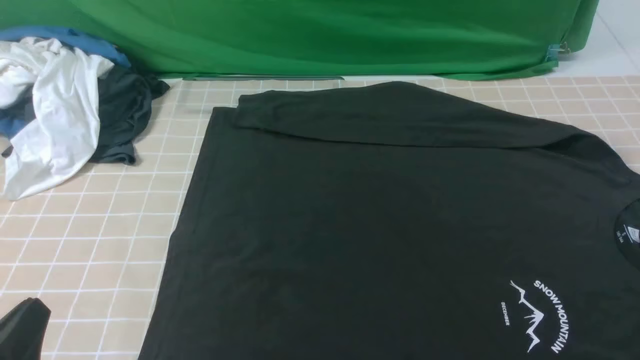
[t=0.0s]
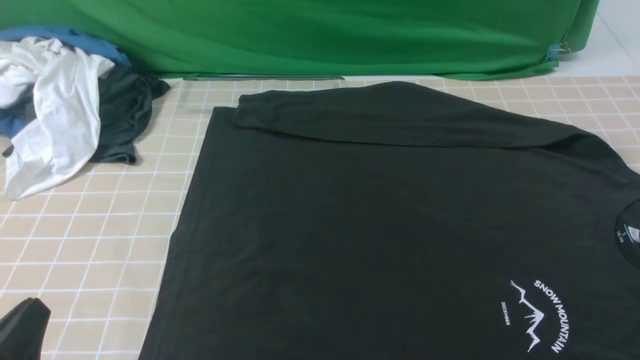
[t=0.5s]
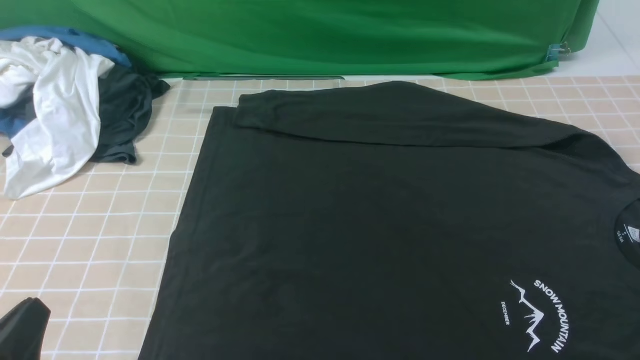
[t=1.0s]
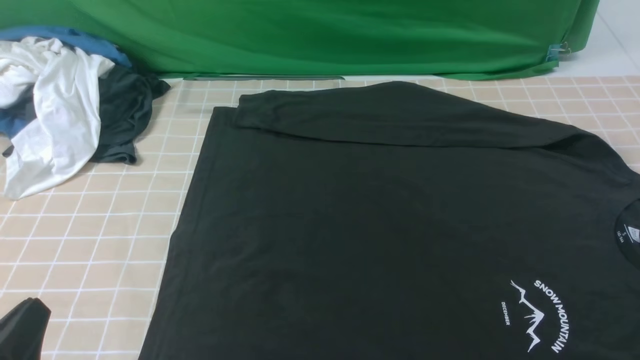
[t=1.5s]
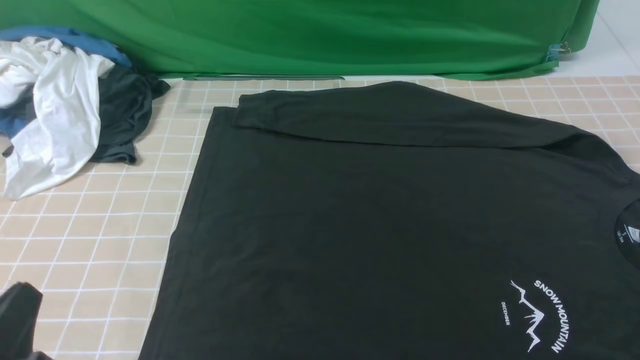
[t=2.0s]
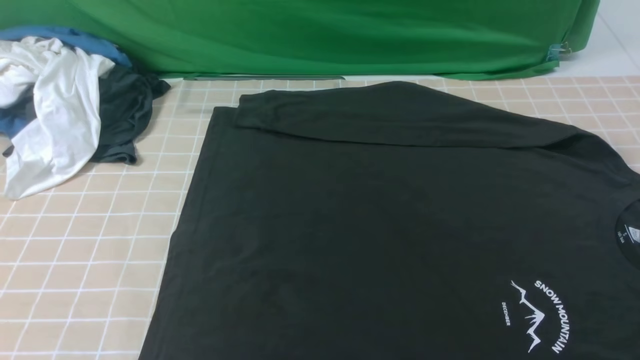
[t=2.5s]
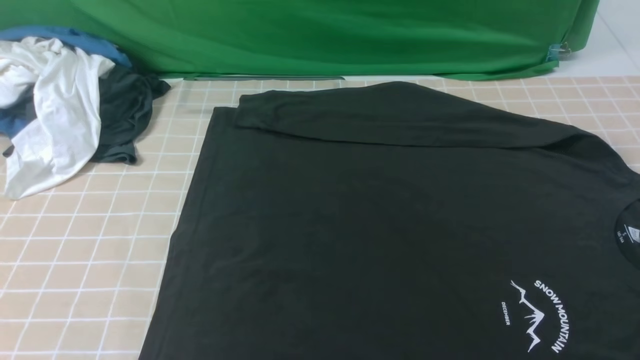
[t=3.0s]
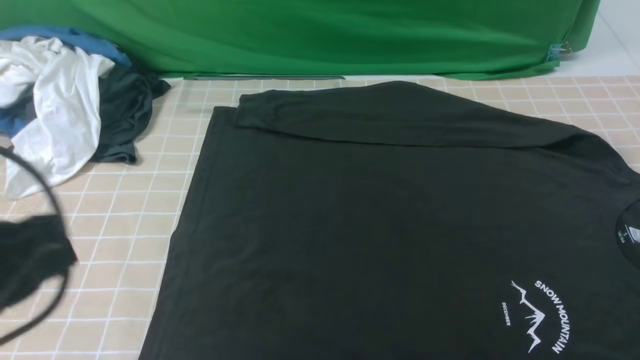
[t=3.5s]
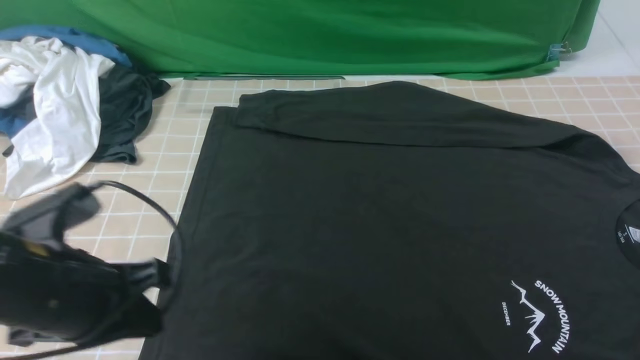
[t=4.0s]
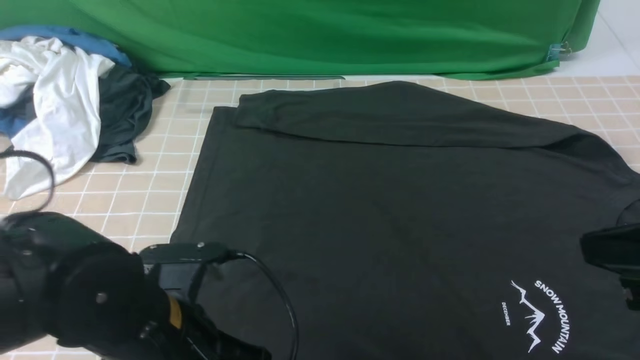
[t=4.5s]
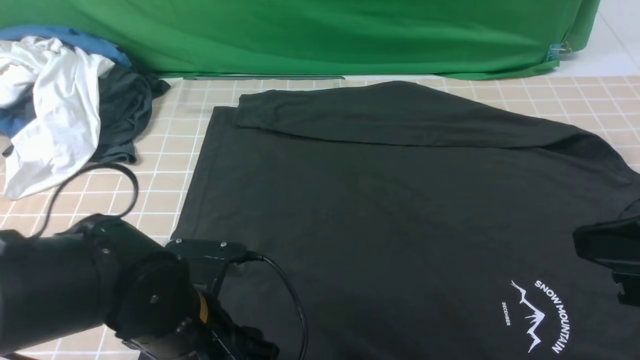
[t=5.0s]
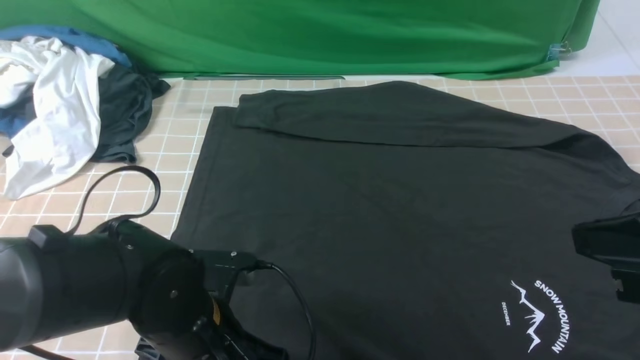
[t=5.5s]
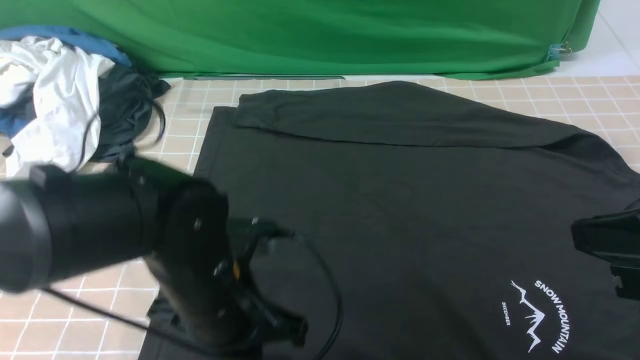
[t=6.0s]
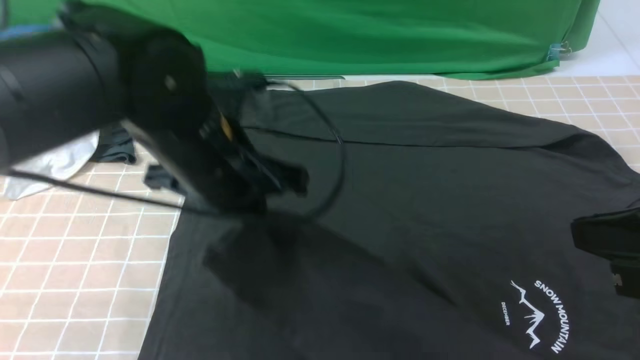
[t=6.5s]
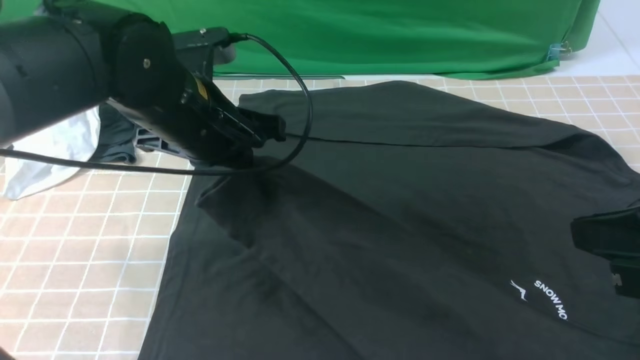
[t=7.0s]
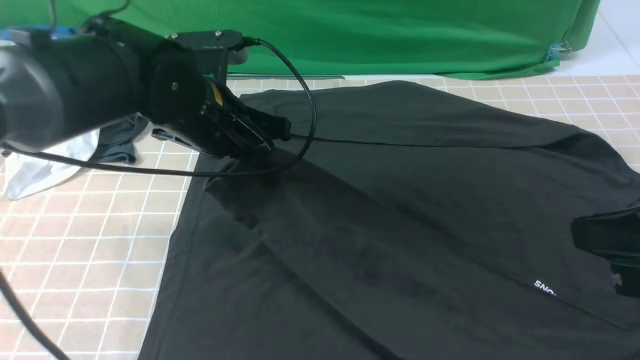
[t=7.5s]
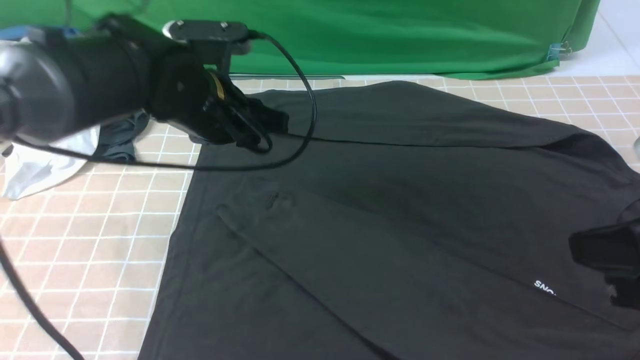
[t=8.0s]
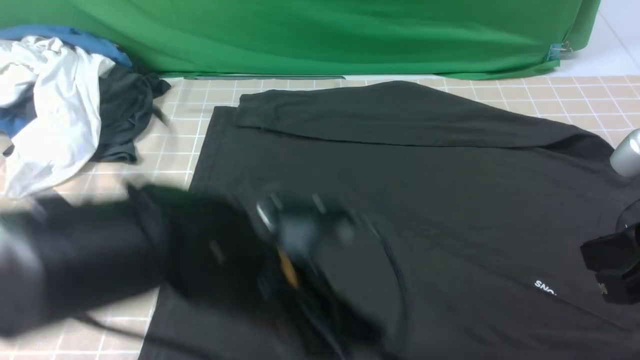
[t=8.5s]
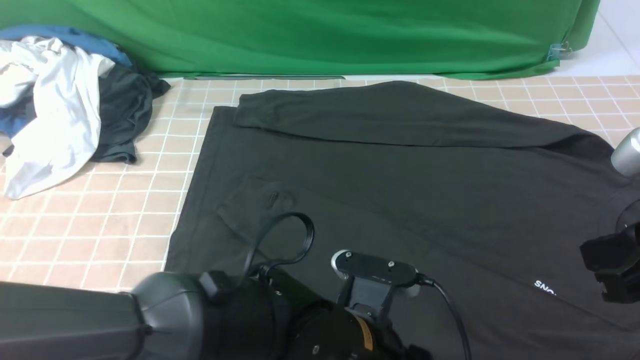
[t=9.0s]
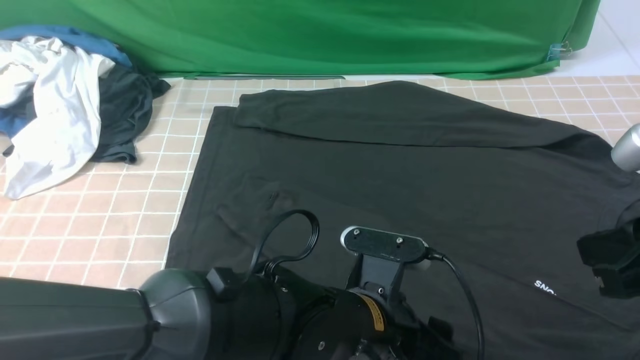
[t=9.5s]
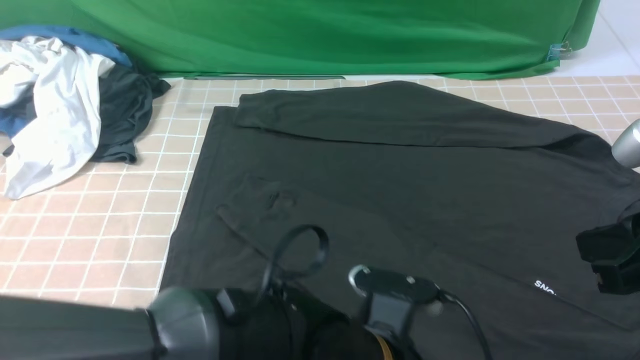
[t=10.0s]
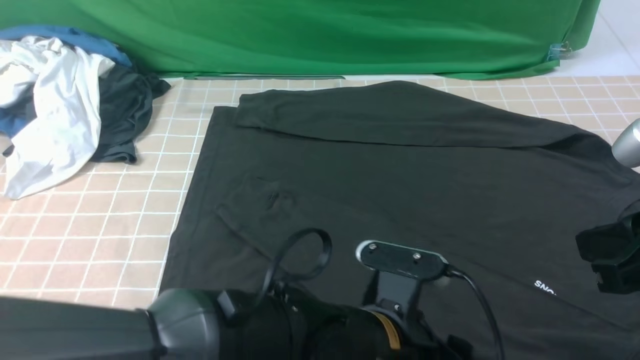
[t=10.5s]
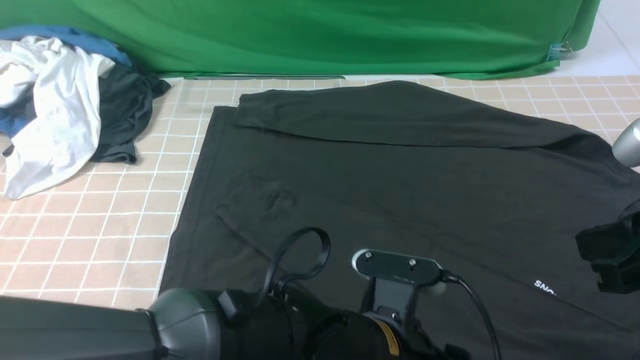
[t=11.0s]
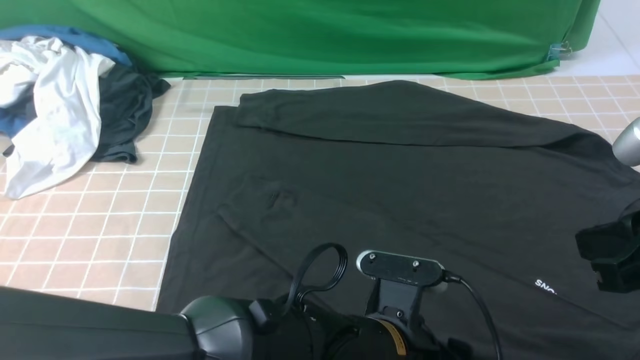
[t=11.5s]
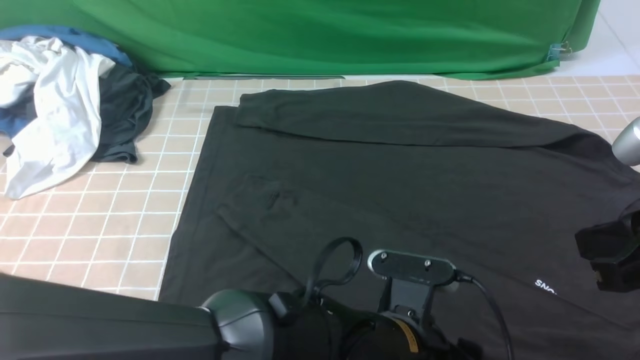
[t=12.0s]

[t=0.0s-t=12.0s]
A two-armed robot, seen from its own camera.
Step, t=0.0s to t=6.0s: use the left arm to clamp the cuff closest to it.
Step, t=6.5s to t=7.5s: use the left arm to drag and place the cuff at the centered position on the left edge of the fabric.
t=0.0s to t=2.0s: The grippers move only a little.
t=2.0s to t=4.0s: The left gripper moves forward and to the right, approximately 15 cm, and travels upward and back again, some 15 cm each way.
t=4.0s to t=6.0s: The right gripper ends up approximately 5 cm from where it was. Meanwhile the left gripper travels to the right by about 10 cm, and opens, then closes again.
t=6.0s to t=8.0s: The left gripper shifts roughly 15 cm forward and upward.
t=8.0s to t=10.0s: The left gripper moves backward, to the right and downward, roughly 25 cm, and opens.
t=10.0s to t=12.0s: There are only small adjustments of the grippers.

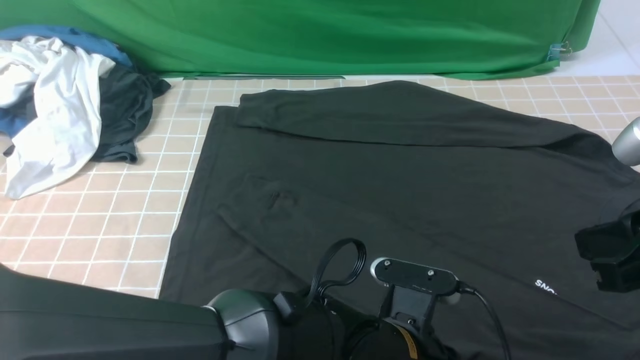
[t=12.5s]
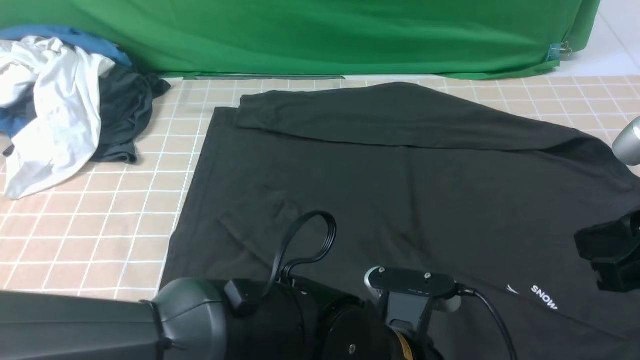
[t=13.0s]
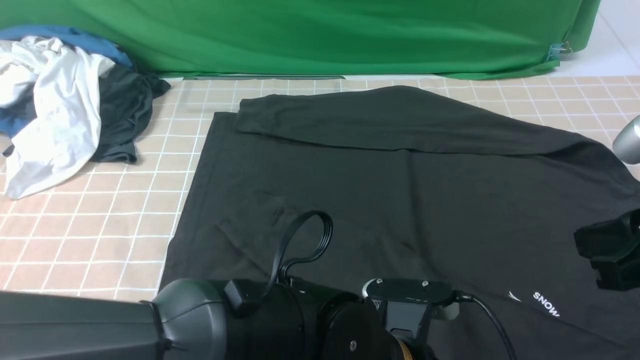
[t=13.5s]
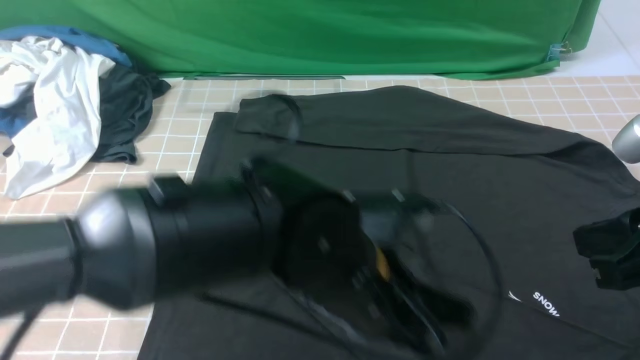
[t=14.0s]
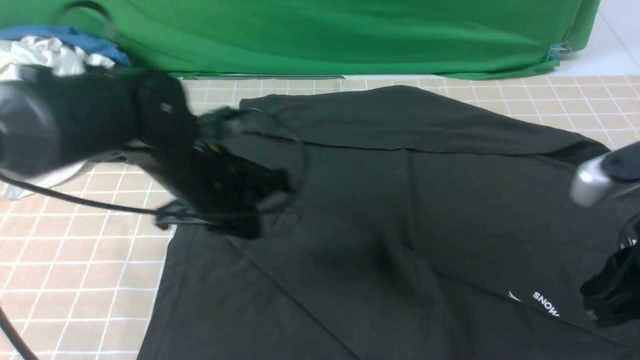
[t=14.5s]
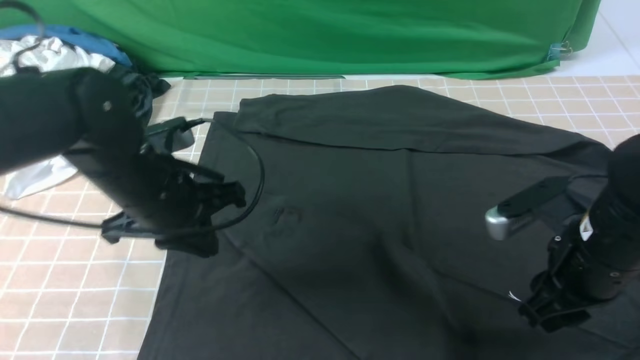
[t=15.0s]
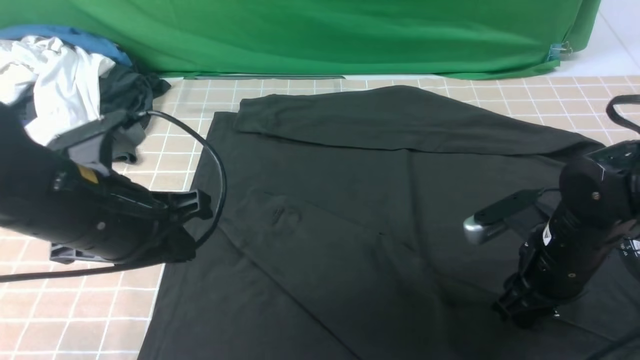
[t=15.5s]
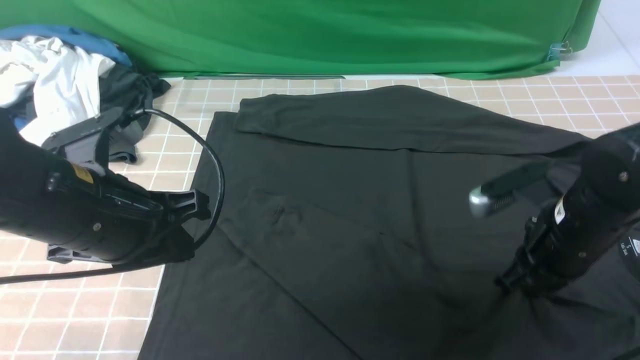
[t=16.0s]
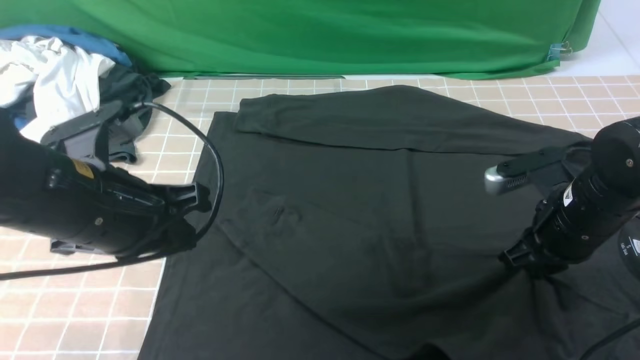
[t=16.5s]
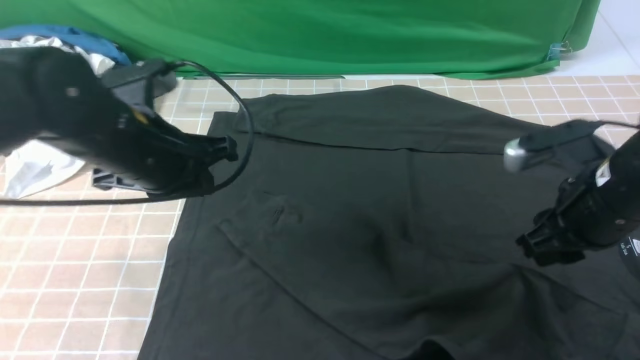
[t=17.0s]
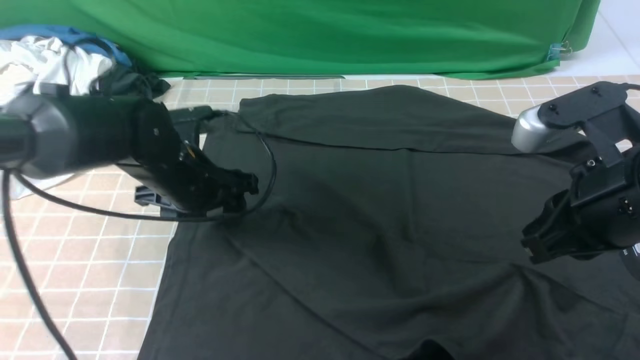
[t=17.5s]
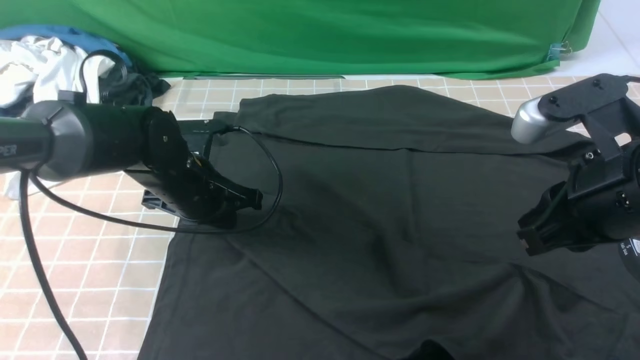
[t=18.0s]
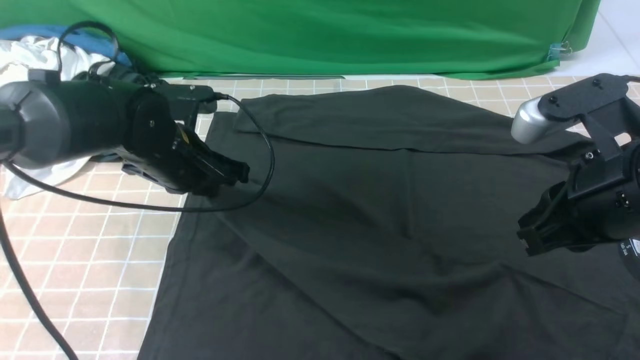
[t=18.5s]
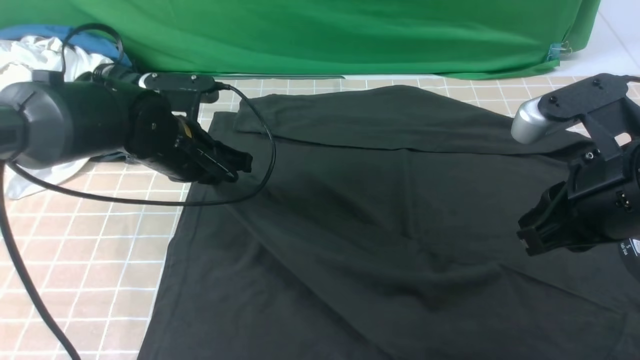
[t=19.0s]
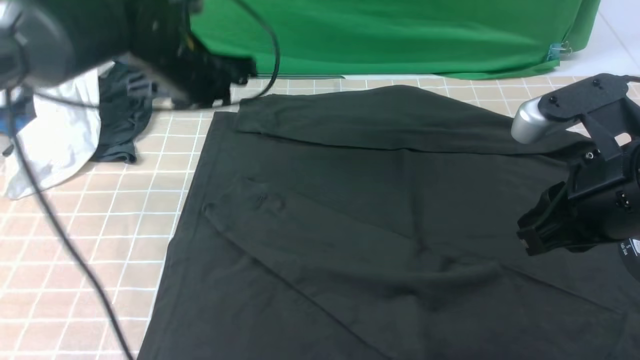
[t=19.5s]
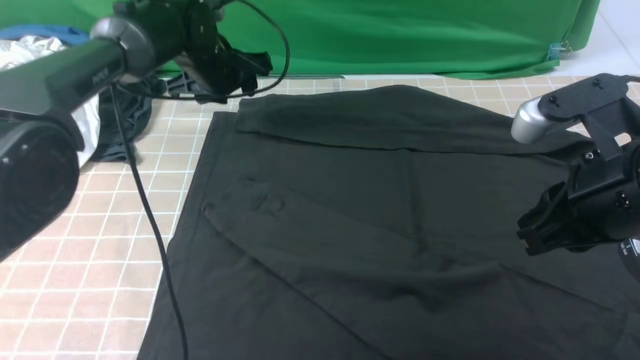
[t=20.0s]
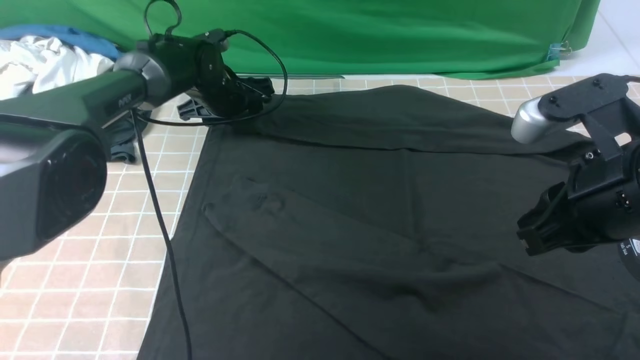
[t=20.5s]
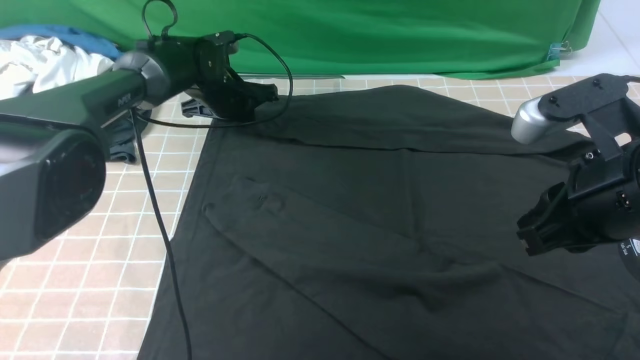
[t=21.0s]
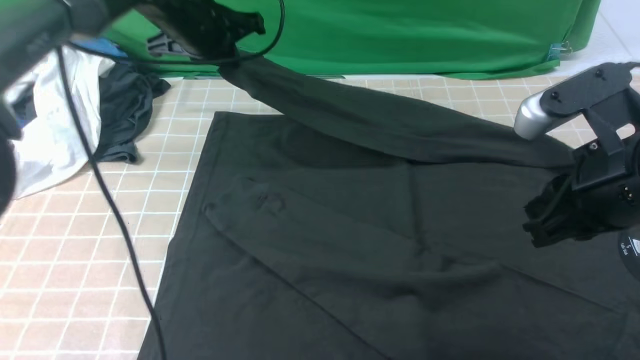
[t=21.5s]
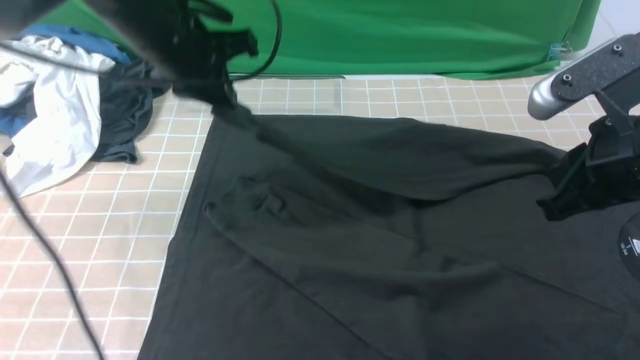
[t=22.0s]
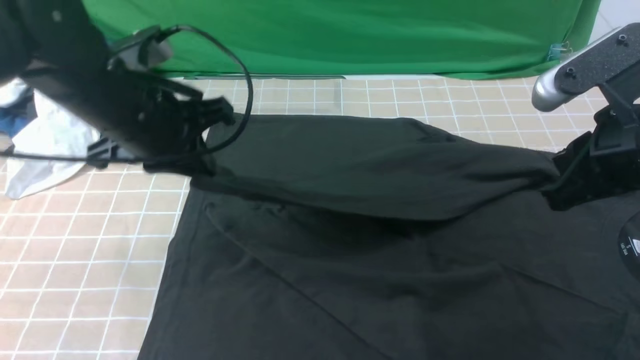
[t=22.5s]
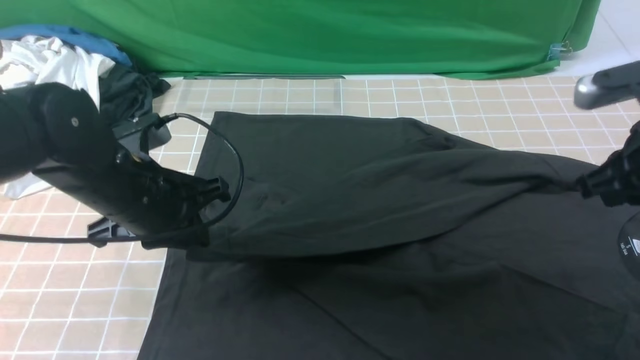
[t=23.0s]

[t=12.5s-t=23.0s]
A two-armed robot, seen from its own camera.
Step, t=12.5s to t=21.0s: use the left arm to clamp the cuff farthest from it.
t=12.5s to t=14.5s: The left gripper is displaced to the left, forward and upward by approximately 25 cm.
t=14.5s to t=16.5s: The right gripper goes some 15 cm forward and downward, while the left gripper moves backward, to the left and upward, roughly 10 cm.
t=16.5s to t=19.0s: The left gripper moves forward and downward, some 15 cm, and opens, then closes once more. Meanwhile the right gripper travels upward and backward by approximately 15 cm.
t=19.0s to t=21.0s: The left gripper moves forward, some 15 cm, and opens and closes again.
t=21.0s to t=23.0s: The right gripper heads to the right and forward, covering roughly 10 cm, while the left gripper goes about 25 cm backward.
